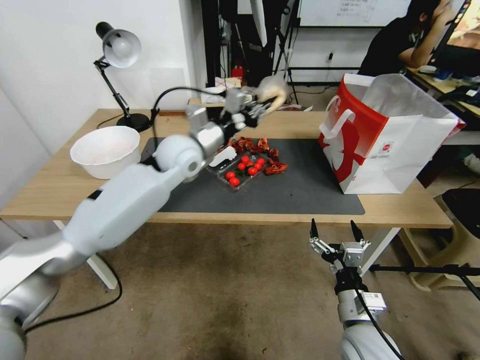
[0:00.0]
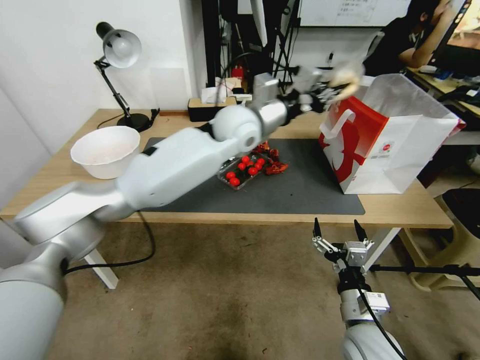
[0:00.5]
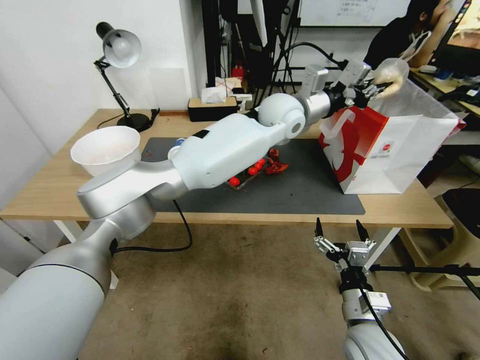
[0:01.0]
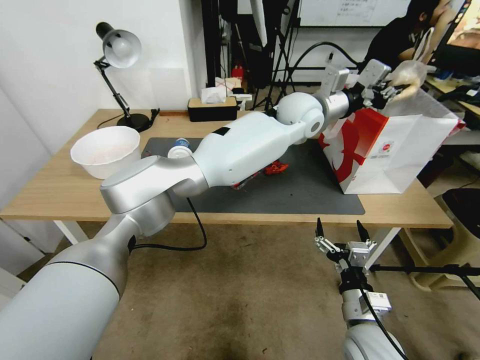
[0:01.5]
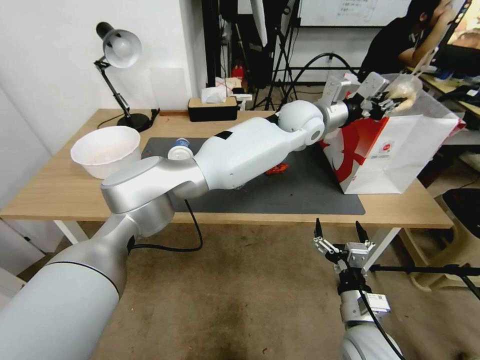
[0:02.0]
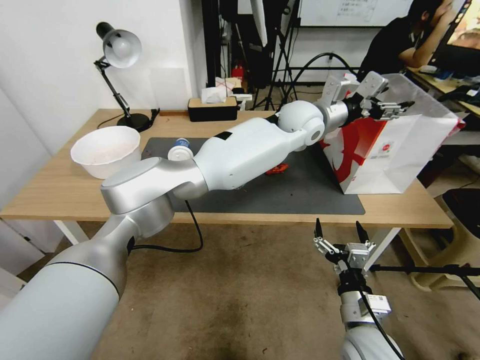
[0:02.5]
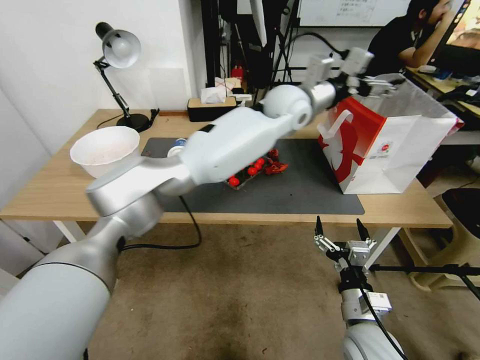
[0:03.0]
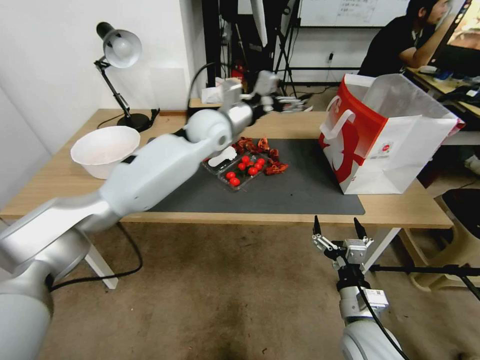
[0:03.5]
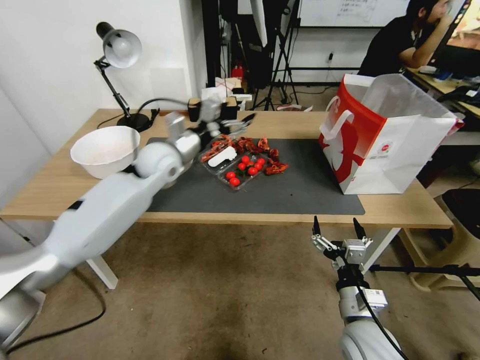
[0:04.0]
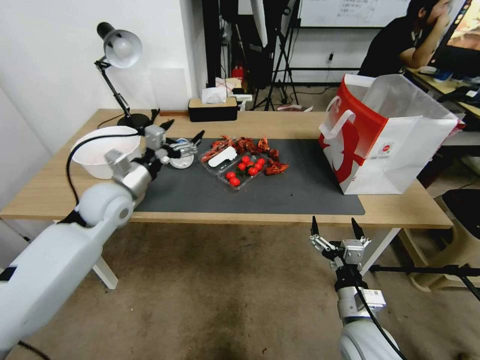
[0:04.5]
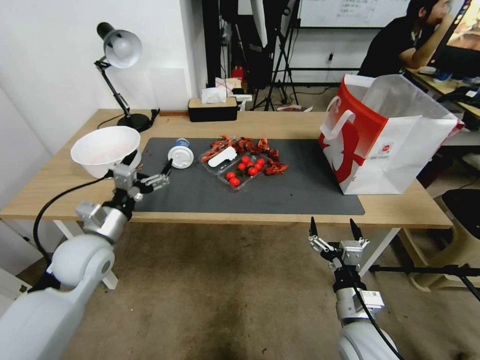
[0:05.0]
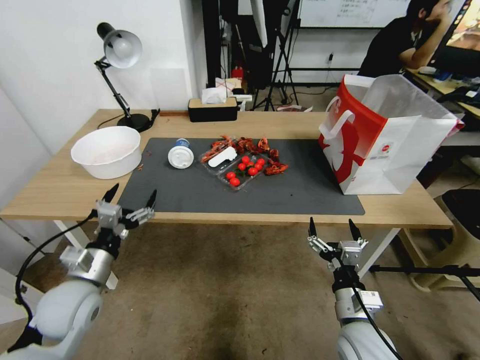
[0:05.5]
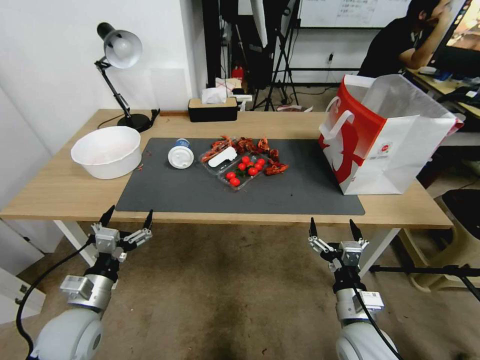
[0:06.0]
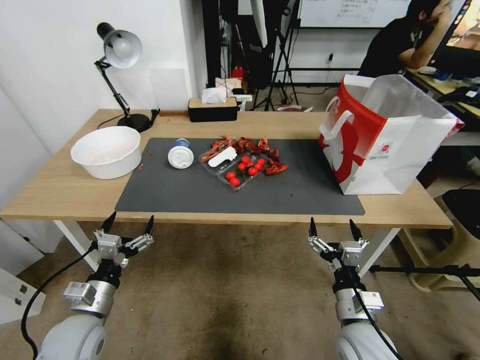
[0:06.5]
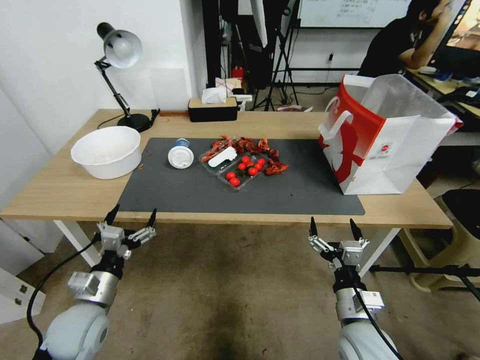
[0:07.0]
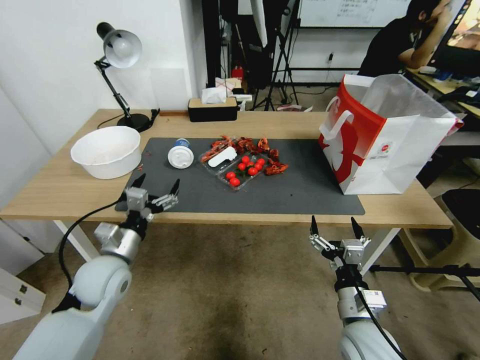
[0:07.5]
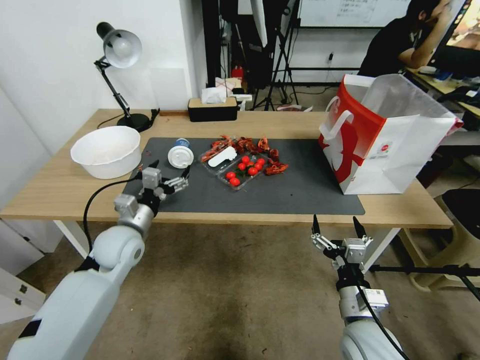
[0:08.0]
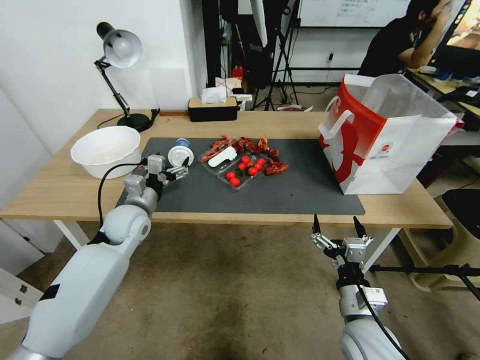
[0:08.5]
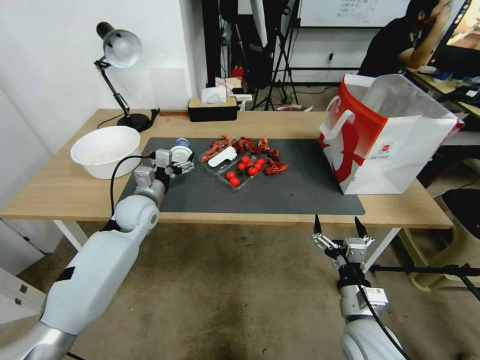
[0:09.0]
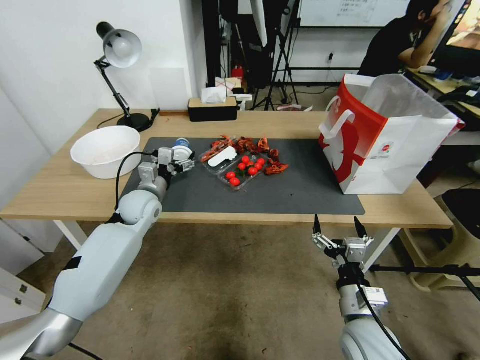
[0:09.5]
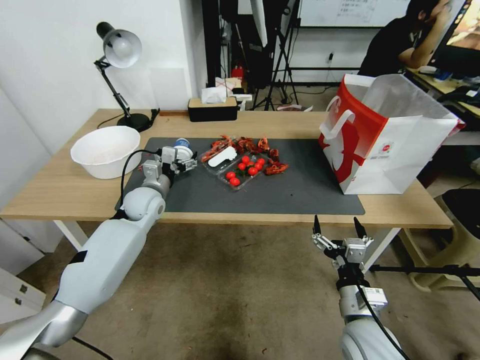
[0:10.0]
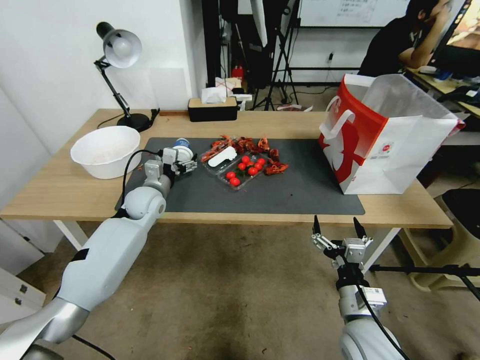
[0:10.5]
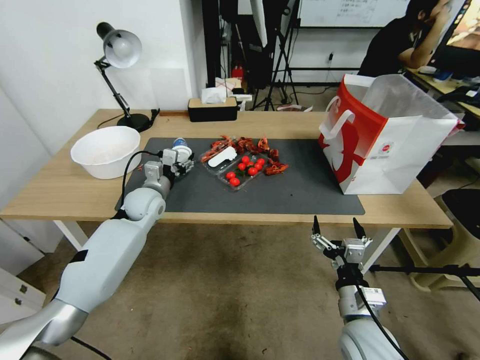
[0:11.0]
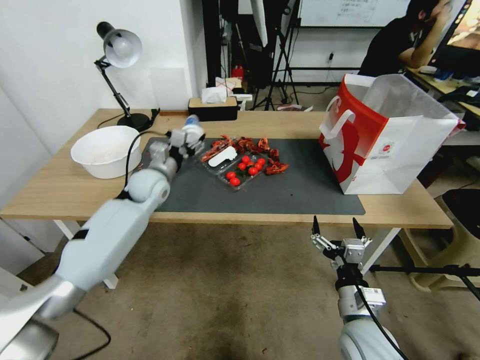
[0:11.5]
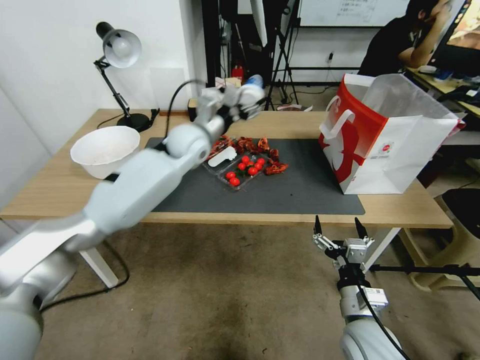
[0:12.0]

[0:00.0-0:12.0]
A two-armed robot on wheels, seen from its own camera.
0:00.0 to 0:02.0: The left gripper heads to the right, covering approximately 25 cm.
0:02.0 to 0:04.0: The left gripper moves to the left, roughly 30 cm, and opens up.
0:04.0 to 0:06.0: The left gripper travels backward, downward and to the left by approximately 40 cm.
0:06.0 to 0:08.0: The left gripper is displaced forward by approximately 15 cm.
0:08.0 to 0:10.0: The left gripper travels forward by approximately 15 cm.
0:10.0 to 0:12.0: The left gripper shifts about 20 cm upward and to the right.

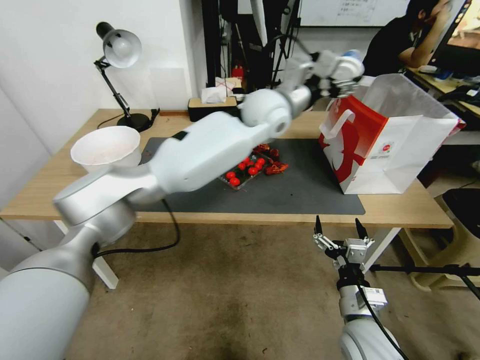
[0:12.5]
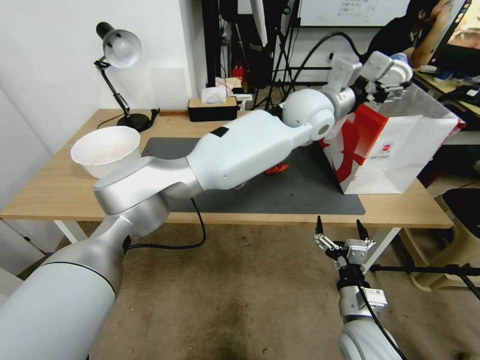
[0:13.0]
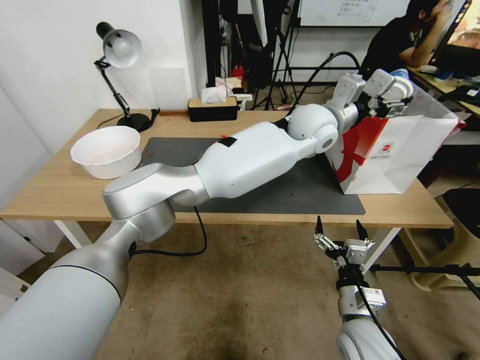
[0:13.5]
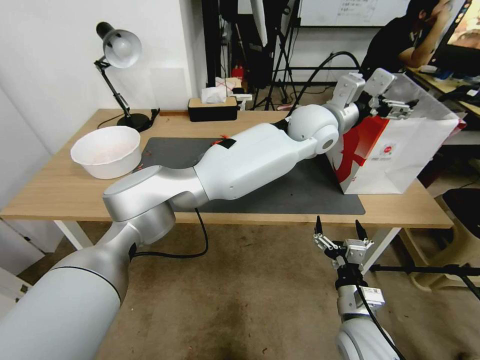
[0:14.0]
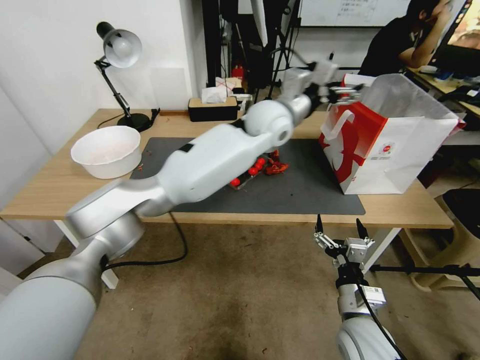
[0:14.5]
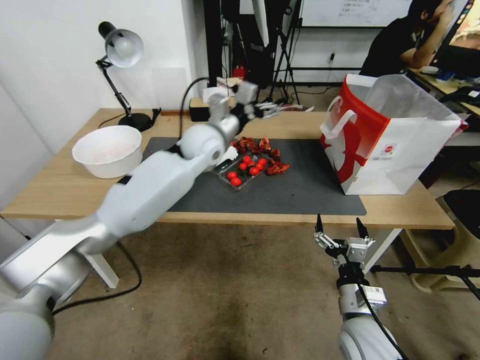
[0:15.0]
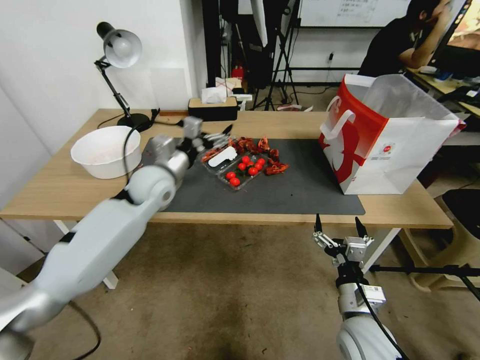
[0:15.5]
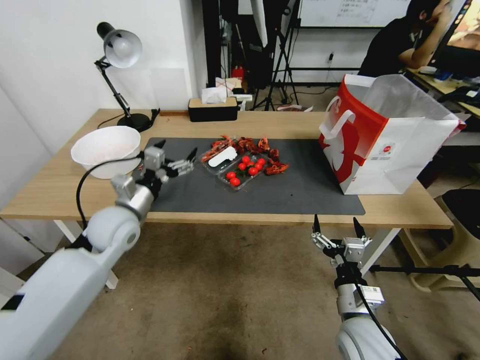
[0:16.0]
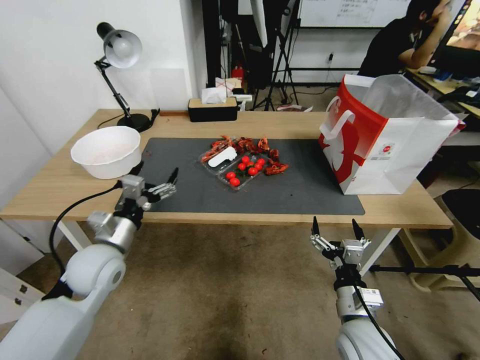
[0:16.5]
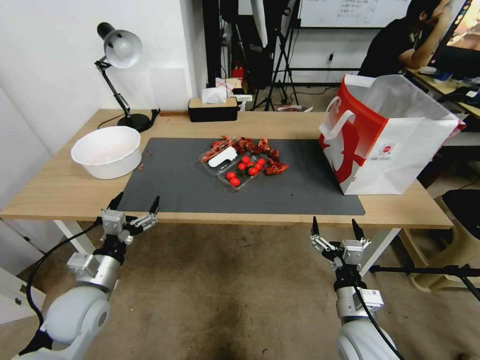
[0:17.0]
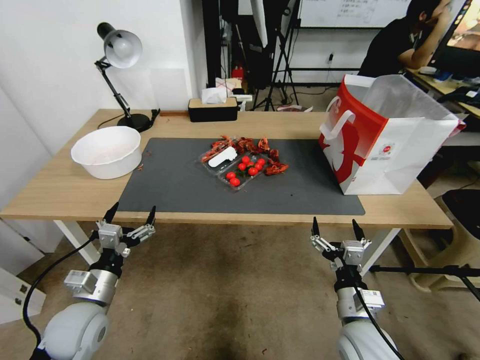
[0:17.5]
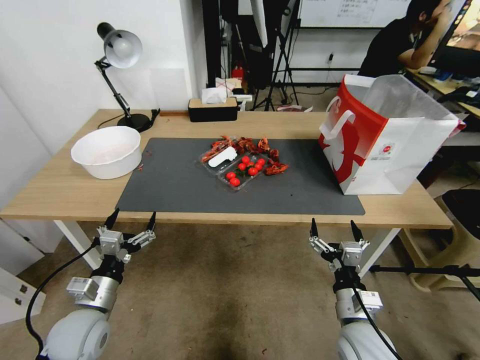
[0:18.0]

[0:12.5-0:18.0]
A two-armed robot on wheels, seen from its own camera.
0:12.5 to 0:14.5: The left gripper reaches some 10 cm to the right, then returns.
0:14.5 to 0:16.0: The left gripper moves to the left, downward and backward, approximately 40 cm.
0:16.0 to 0:18.0: The left gripper moves backward and downward, about 20 cm.
